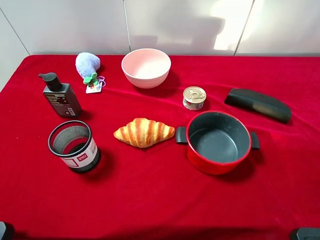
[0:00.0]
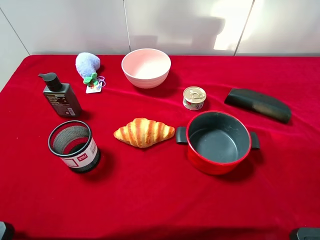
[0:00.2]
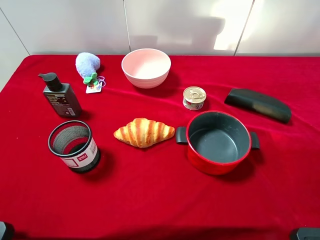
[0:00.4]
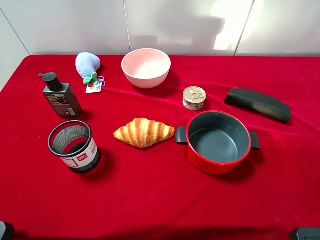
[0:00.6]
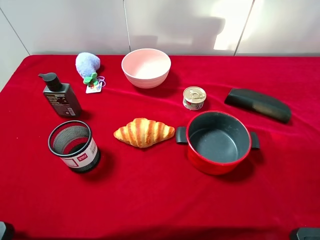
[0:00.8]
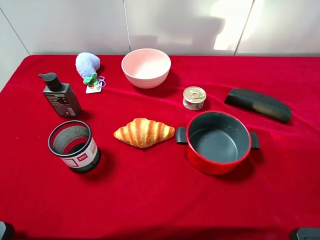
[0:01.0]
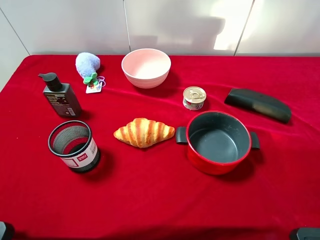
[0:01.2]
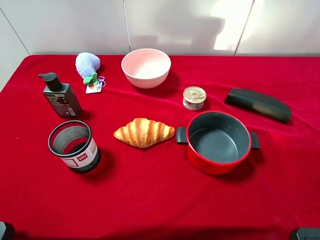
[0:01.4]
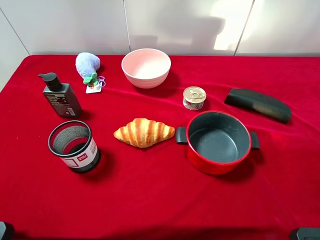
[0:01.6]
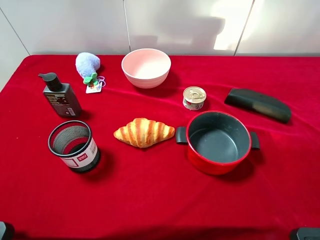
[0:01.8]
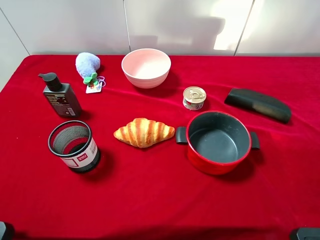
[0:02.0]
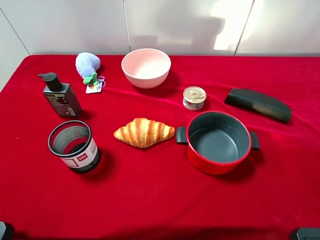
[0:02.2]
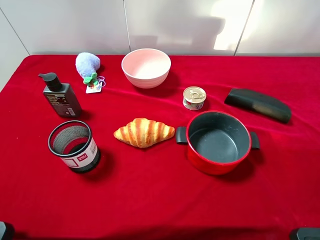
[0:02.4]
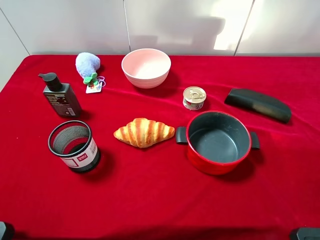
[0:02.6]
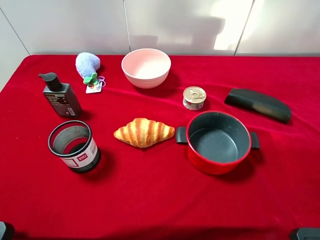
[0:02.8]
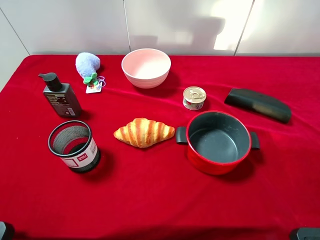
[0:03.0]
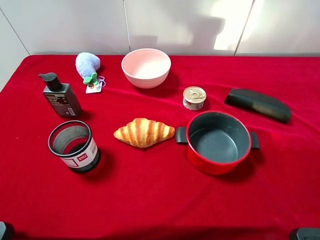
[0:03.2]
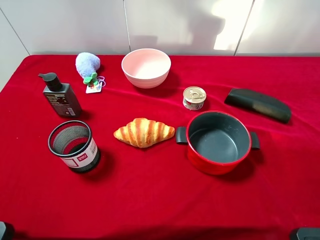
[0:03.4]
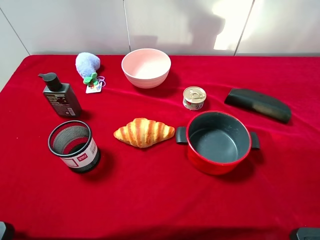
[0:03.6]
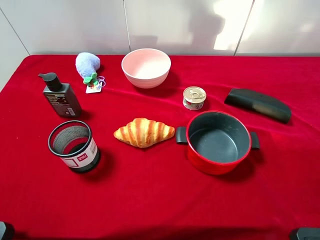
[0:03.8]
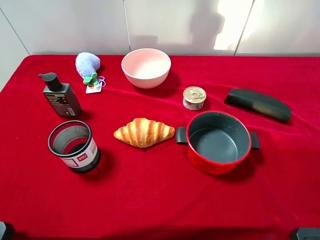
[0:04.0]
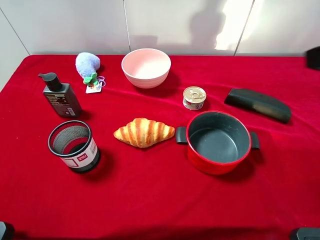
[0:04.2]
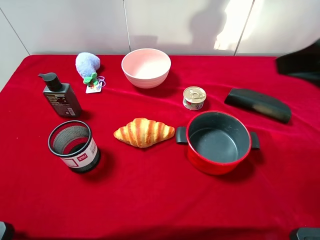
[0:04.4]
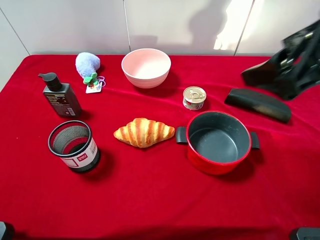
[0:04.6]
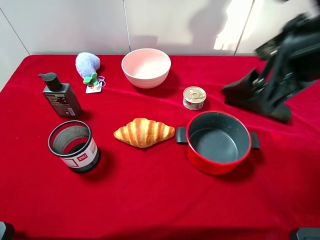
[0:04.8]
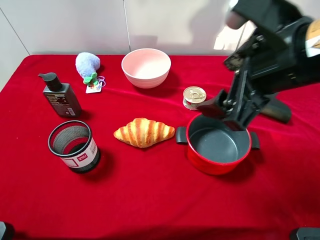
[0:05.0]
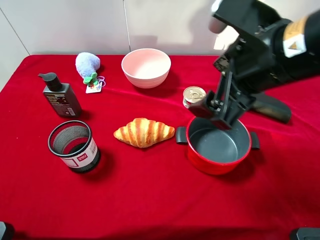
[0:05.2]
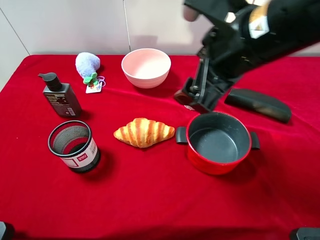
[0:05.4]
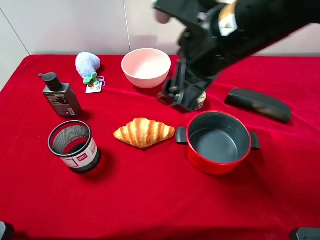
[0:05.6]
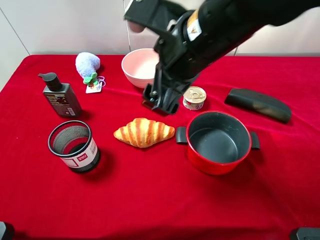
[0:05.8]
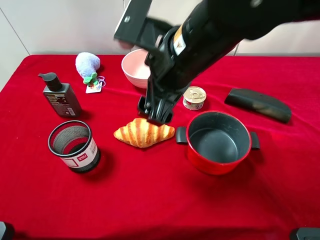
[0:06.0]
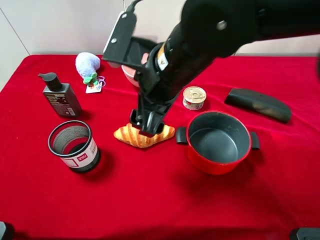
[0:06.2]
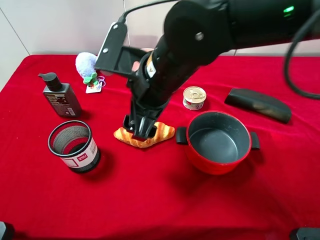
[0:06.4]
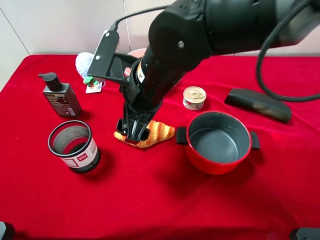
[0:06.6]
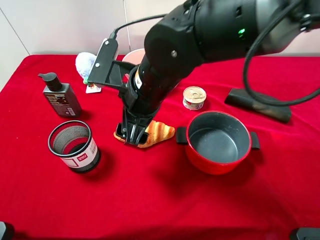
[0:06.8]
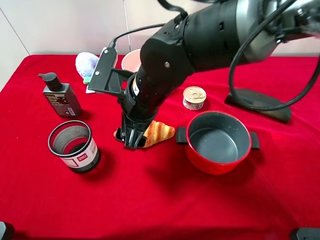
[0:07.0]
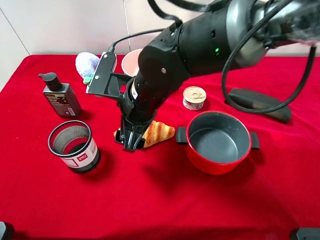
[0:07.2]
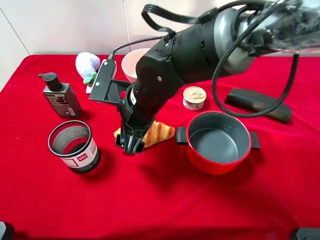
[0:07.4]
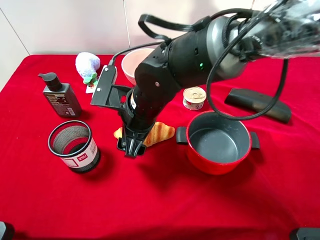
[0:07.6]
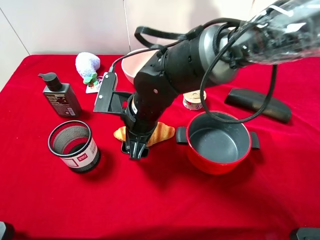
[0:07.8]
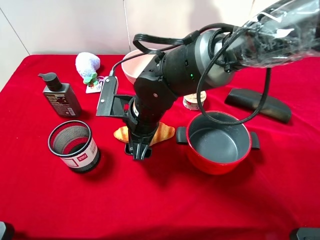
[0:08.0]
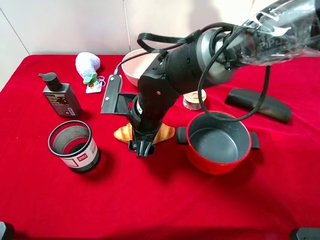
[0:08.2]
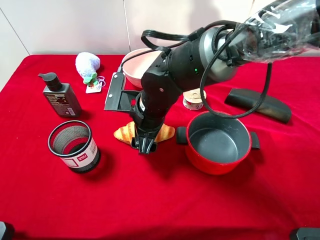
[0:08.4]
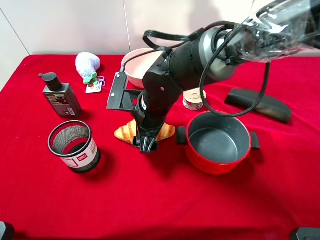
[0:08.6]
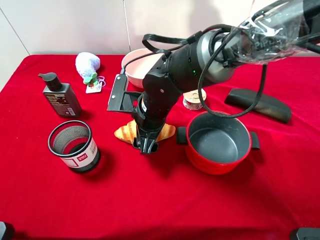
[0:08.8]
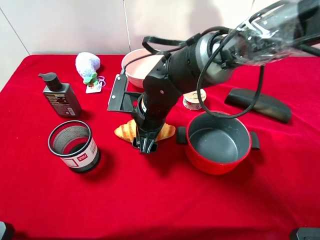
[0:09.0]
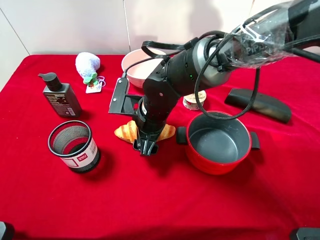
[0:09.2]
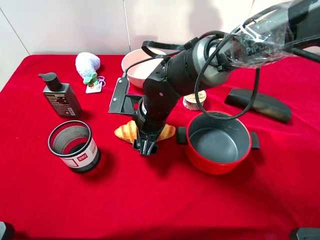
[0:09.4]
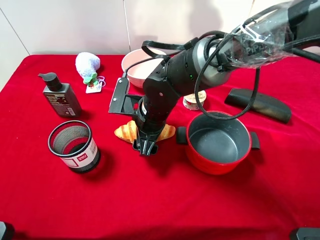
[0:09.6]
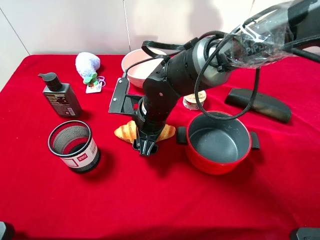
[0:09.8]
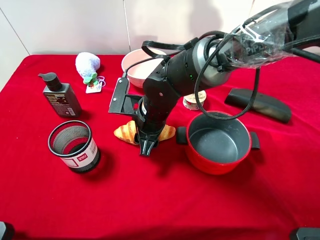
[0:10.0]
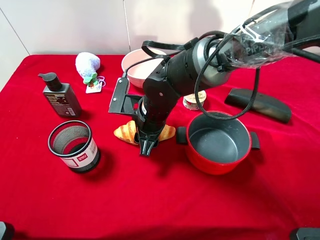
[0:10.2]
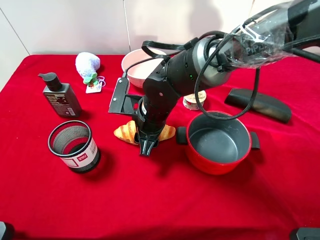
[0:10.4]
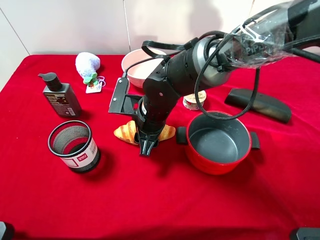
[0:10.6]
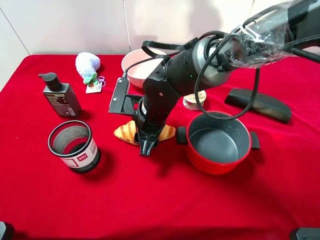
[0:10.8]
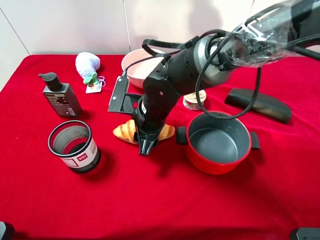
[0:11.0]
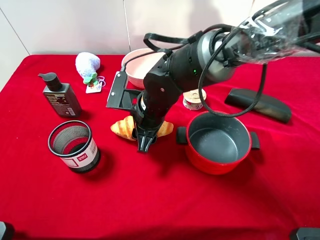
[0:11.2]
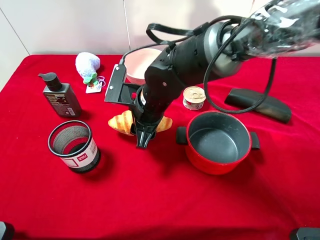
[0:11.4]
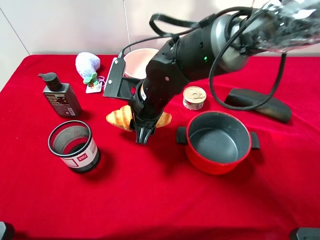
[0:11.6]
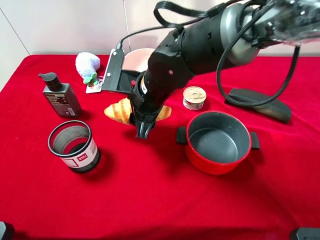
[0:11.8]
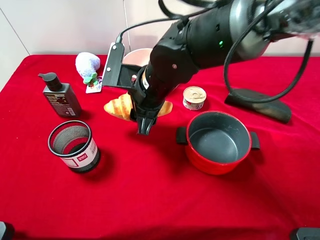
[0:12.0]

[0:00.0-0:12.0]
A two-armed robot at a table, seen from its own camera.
Task of the whole recording: pick up an item with a gripper and place it in a random container on the desktop.
0:00.0 to 0:01.6: The two grippers keep their place.
0:03.0 to 0:04.4: The right gripper travels forward and to the left by about 15 cm.
0:04.4 to 0:06.0: The right gripper travels to the left and downward by about 20 cm.
0:06.0 to 0:07.6: The right gripper heads downward and to the left, covering some 10 cm.
0:07.6 to 0:09.0: The grippers stay close to where they were, moving slightly.
0:09.0 to 0:10.4: The right gripper closes its fingers.
0:10.4 to 0:12.0: The right gripper heads upward, covering about 5 cm.

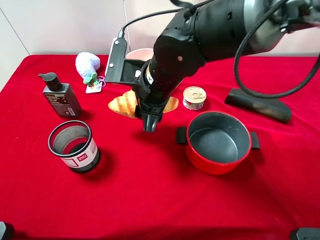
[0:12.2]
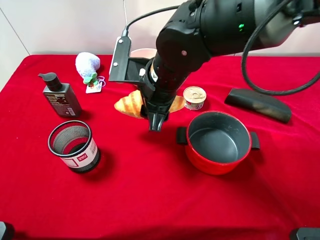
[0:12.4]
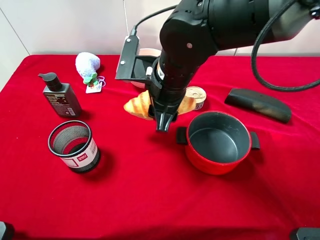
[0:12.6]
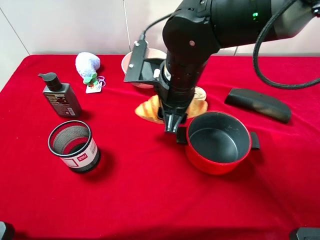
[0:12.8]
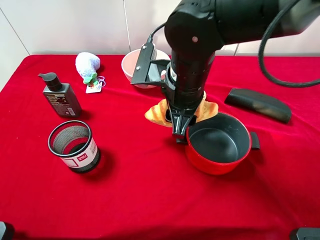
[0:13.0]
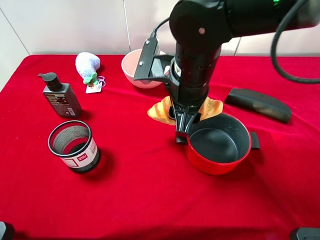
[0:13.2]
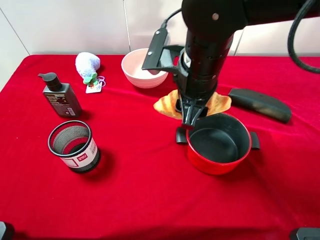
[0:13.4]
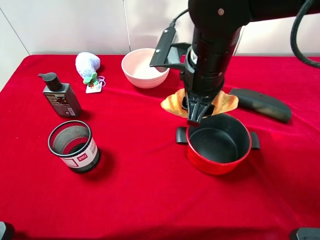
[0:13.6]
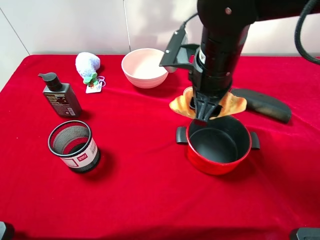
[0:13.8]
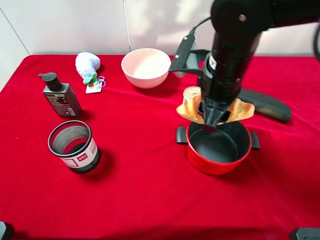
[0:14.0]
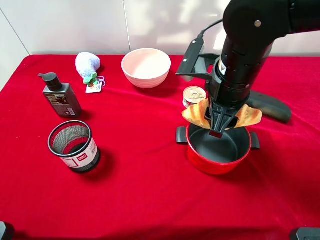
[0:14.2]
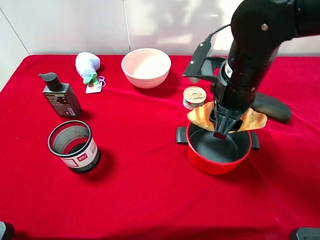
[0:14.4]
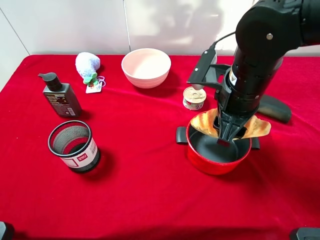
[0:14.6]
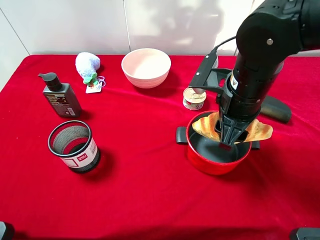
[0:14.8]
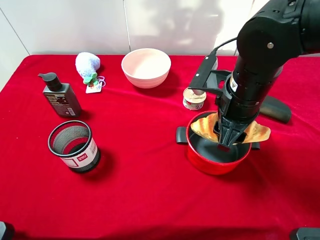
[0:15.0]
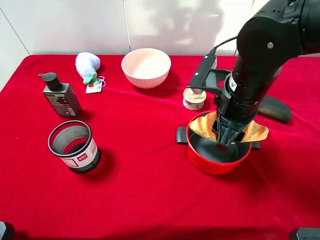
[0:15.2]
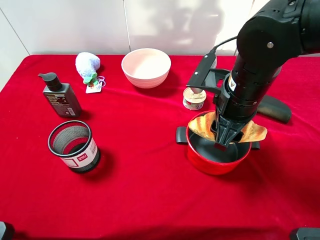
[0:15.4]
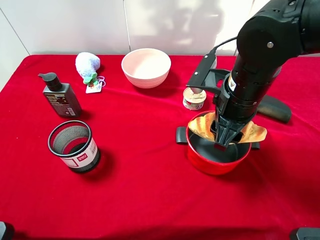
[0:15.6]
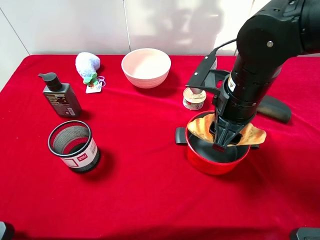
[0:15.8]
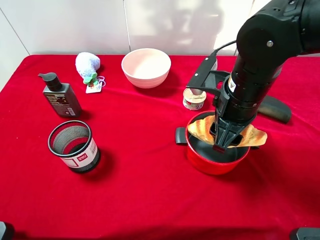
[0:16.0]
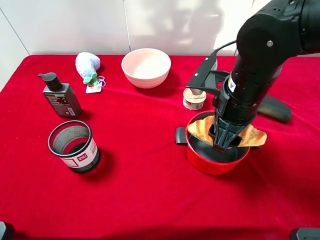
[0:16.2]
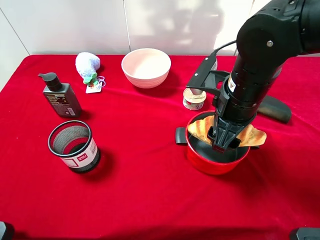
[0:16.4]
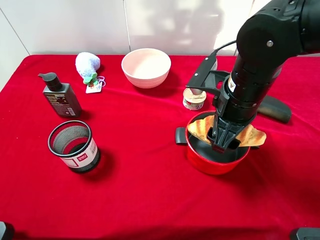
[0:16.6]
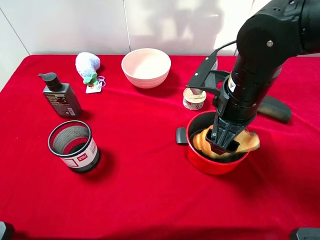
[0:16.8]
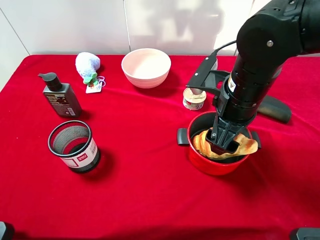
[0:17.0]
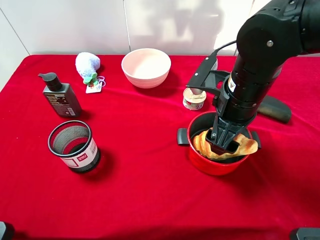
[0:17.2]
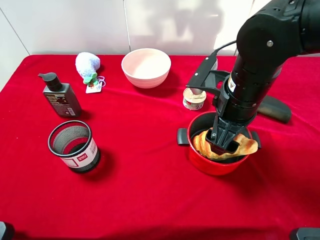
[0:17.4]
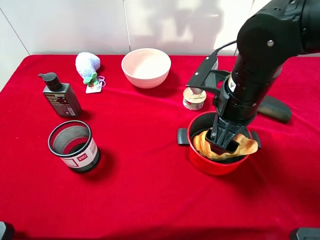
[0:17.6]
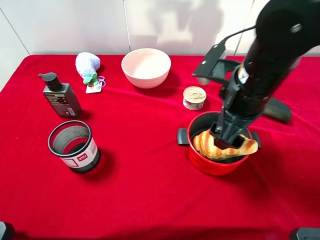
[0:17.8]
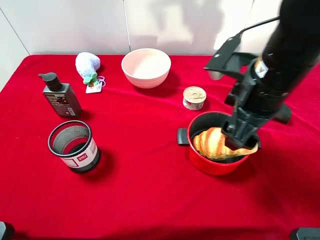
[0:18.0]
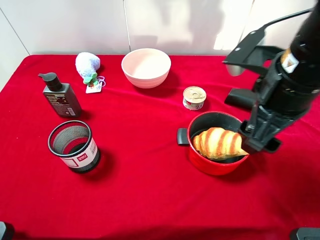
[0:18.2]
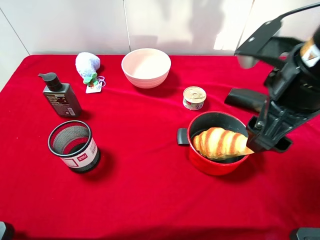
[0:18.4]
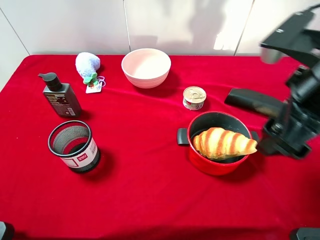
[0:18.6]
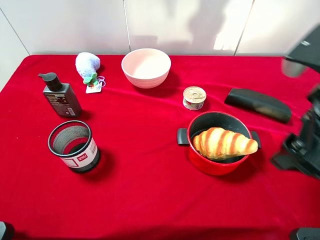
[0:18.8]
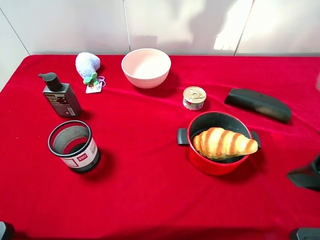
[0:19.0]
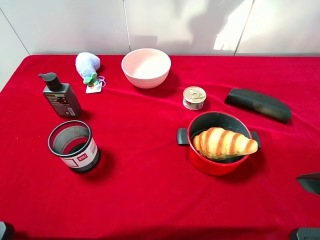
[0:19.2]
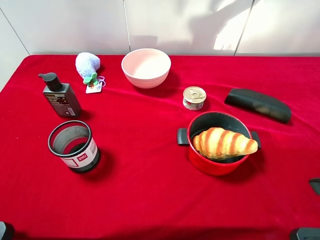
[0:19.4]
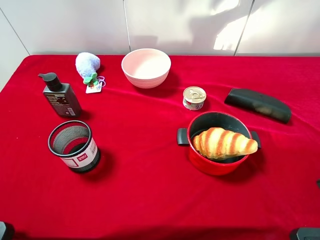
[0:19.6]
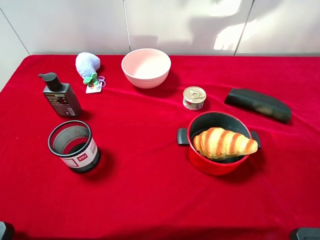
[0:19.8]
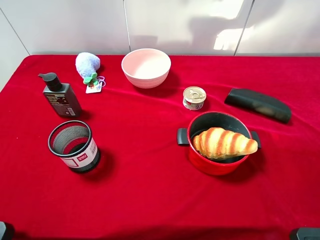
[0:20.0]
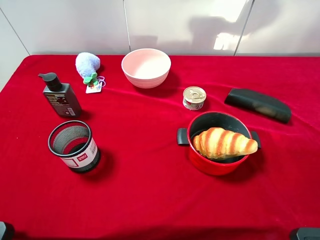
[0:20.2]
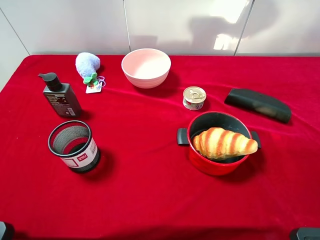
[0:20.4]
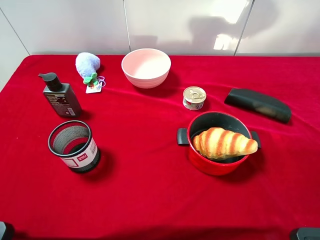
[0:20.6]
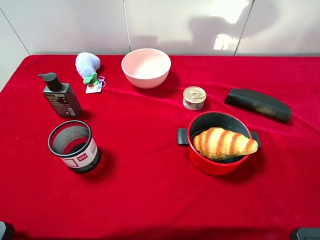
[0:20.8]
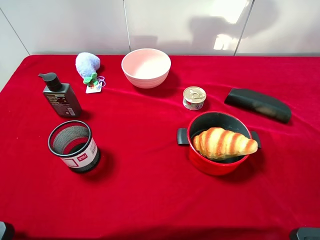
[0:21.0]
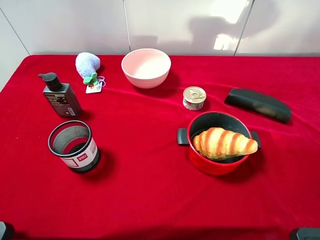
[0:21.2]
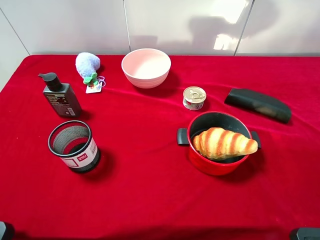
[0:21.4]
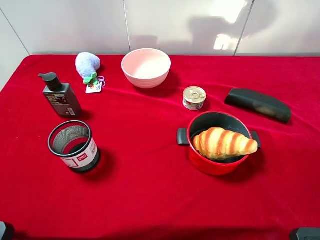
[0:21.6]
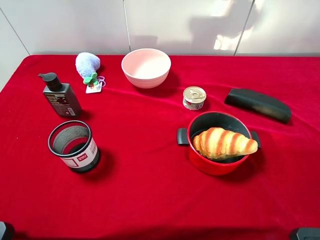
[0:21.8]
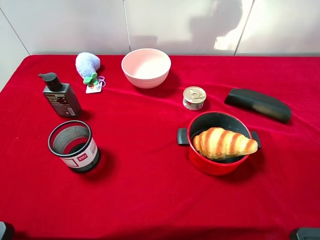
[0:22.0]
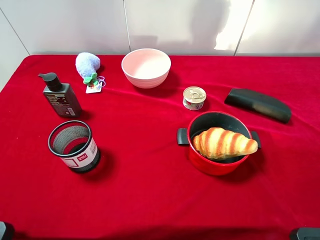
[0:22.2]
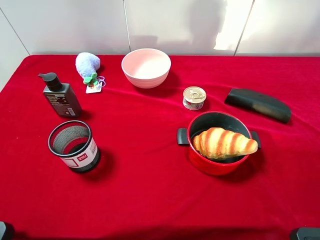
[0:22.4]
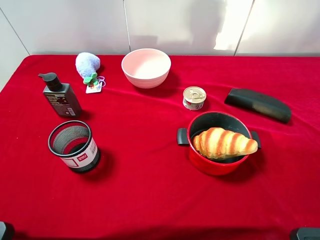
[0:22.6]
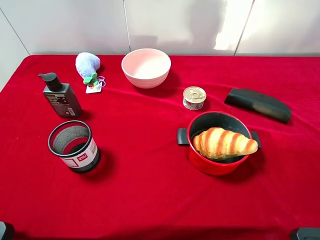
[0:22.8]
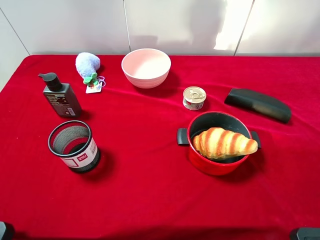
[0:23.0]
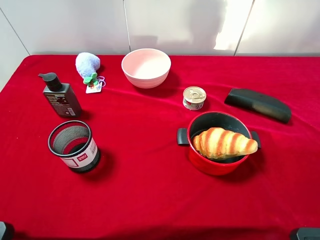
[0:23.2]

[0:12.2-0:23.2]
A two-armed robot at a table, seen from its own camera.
Task of the whole recording: pick up an item with a gripper and place it in a random container on the desktop.
0:12.2 to 0:13.8: The right gripper shifts about 10 cm to the right.
0:13.8 to 0:15.4: The right gripper shifts by some 5 cm.
0:15.4 to 0:17.0: The right gripper opens.
0:17.0 to 0:18.4: The right gripper is displaced upward by roughly 10 cm.
0:18.4 to 0:20.0: The right gripper is displaced backward and to the right by some 20 cm.
0:20.0 to 0:21.6: The grippers move only a little.
